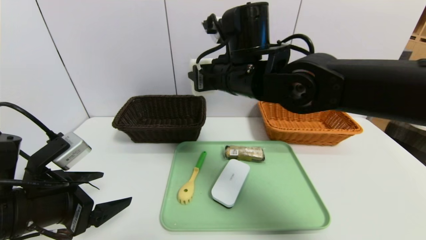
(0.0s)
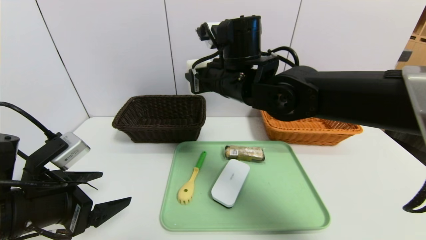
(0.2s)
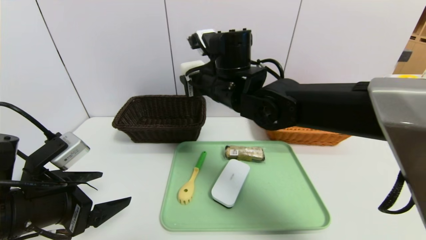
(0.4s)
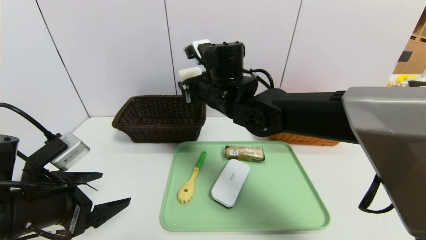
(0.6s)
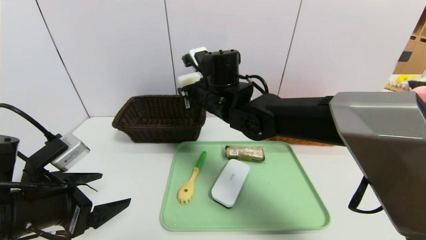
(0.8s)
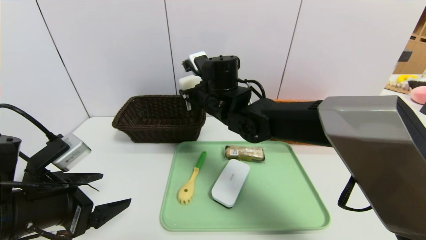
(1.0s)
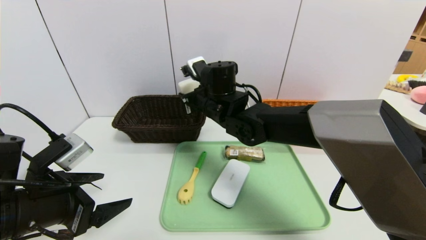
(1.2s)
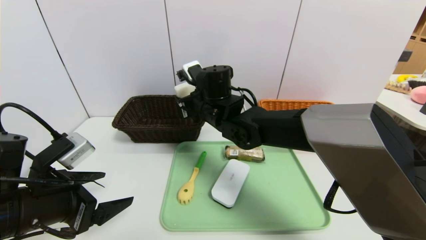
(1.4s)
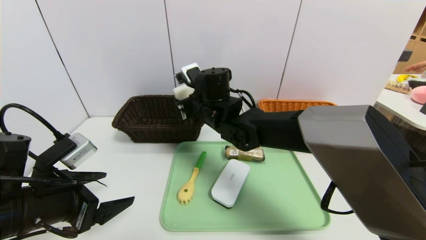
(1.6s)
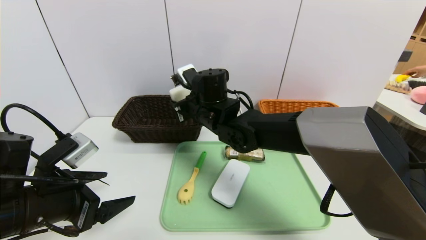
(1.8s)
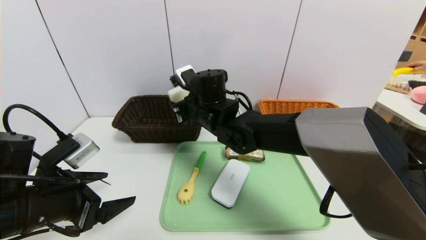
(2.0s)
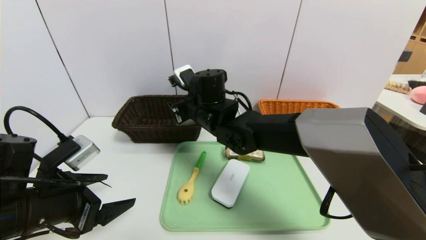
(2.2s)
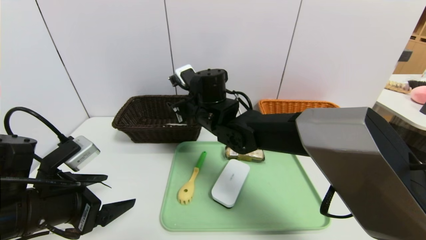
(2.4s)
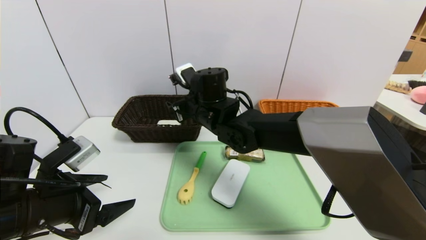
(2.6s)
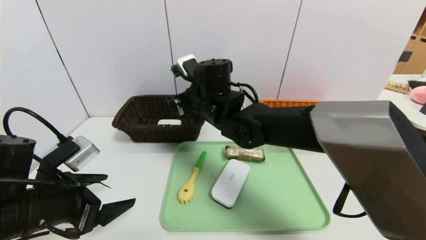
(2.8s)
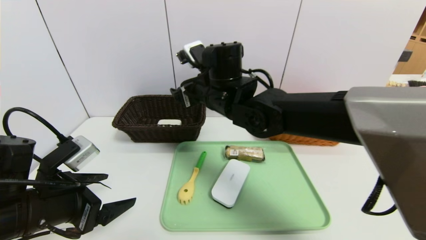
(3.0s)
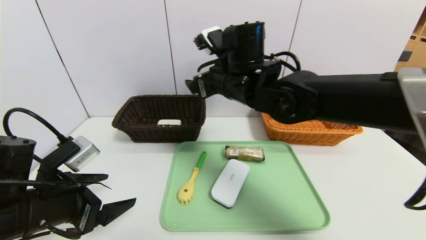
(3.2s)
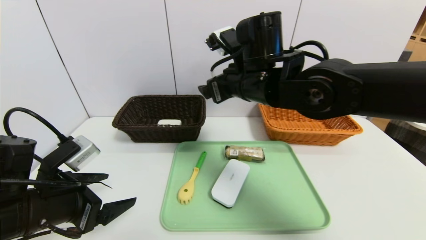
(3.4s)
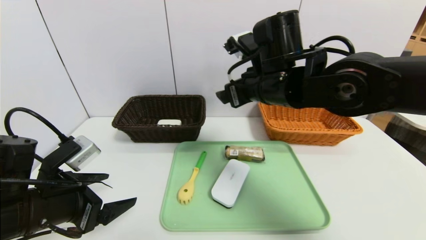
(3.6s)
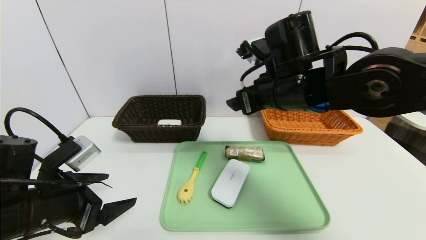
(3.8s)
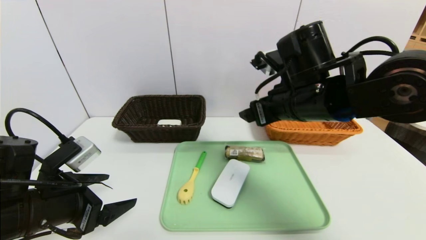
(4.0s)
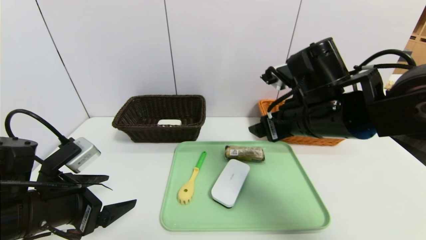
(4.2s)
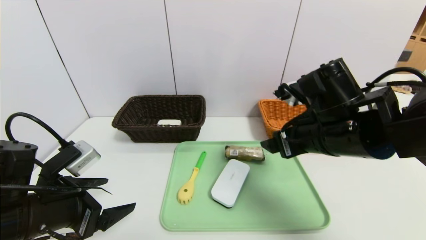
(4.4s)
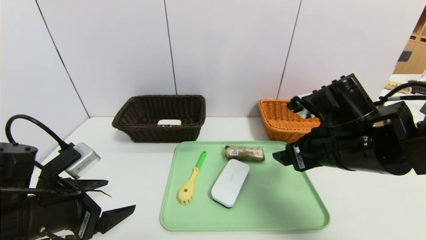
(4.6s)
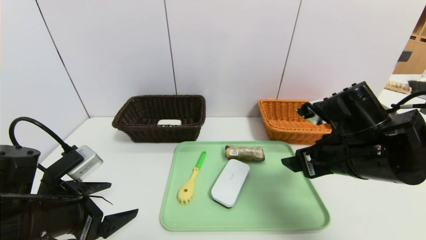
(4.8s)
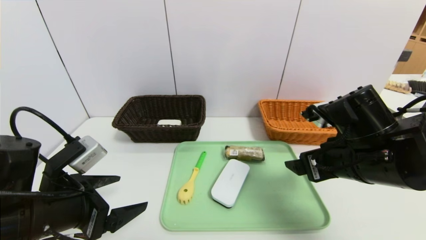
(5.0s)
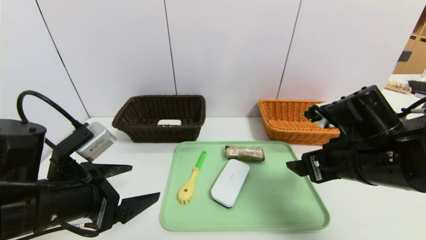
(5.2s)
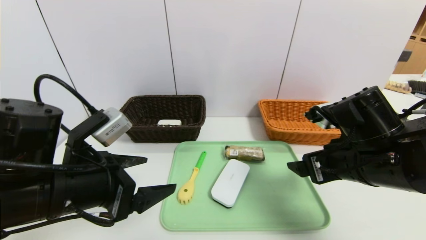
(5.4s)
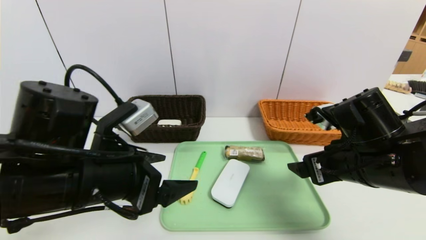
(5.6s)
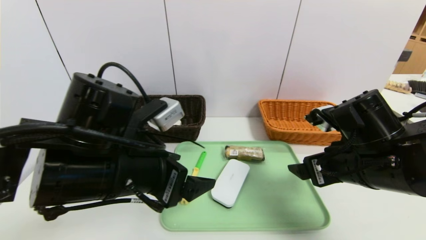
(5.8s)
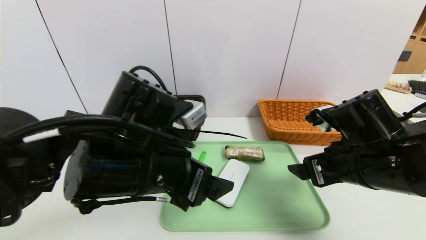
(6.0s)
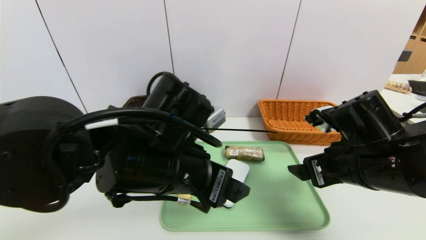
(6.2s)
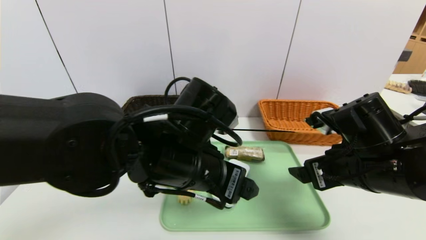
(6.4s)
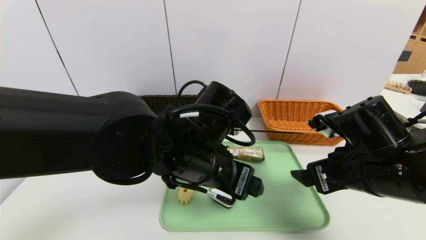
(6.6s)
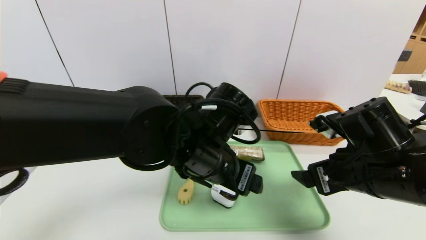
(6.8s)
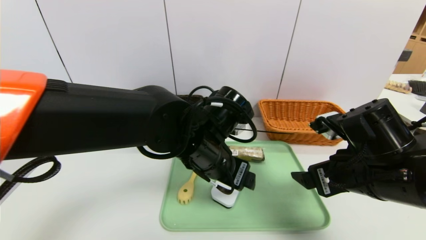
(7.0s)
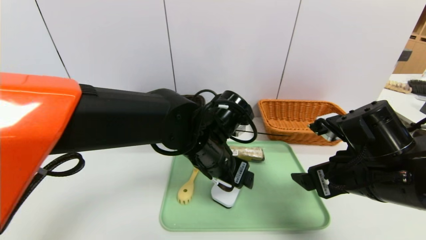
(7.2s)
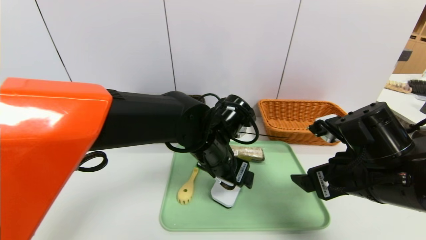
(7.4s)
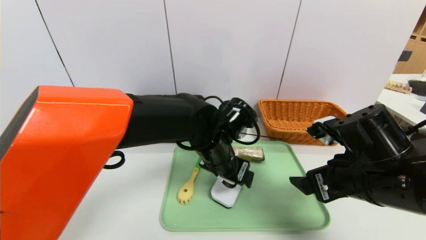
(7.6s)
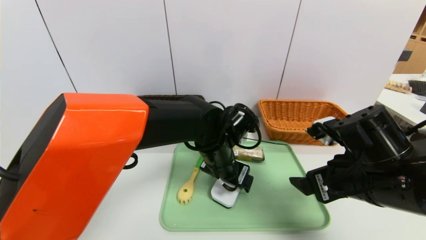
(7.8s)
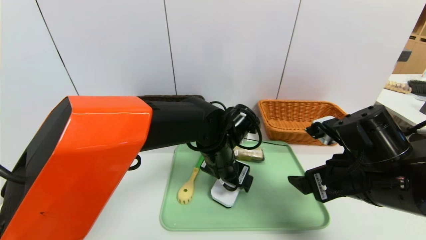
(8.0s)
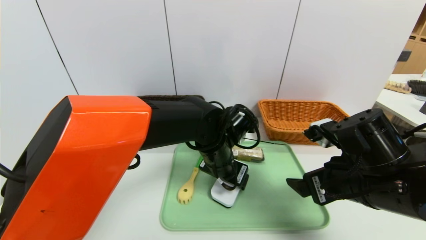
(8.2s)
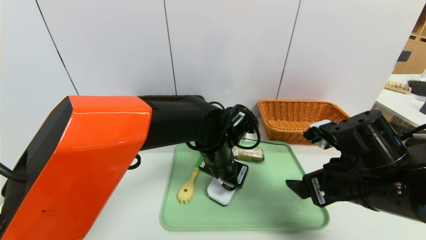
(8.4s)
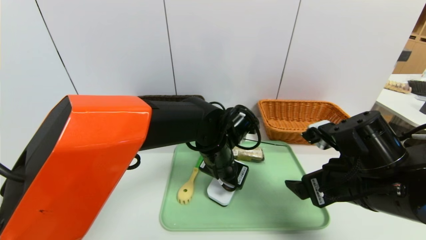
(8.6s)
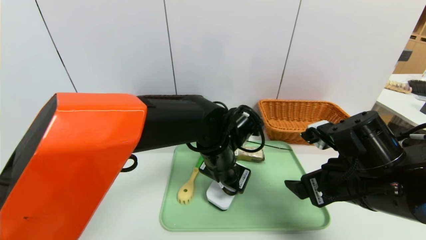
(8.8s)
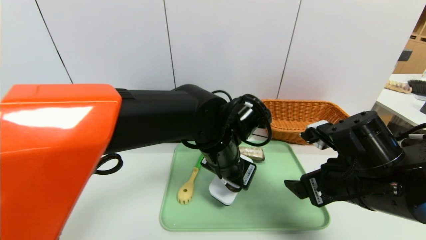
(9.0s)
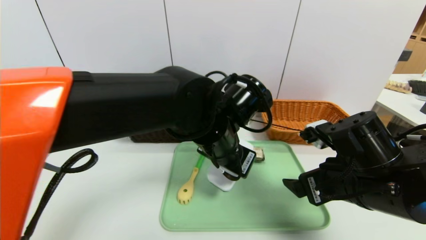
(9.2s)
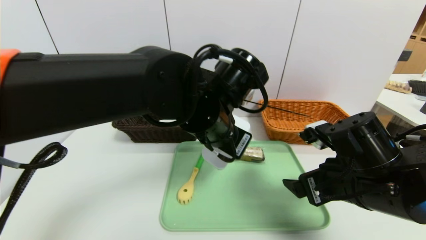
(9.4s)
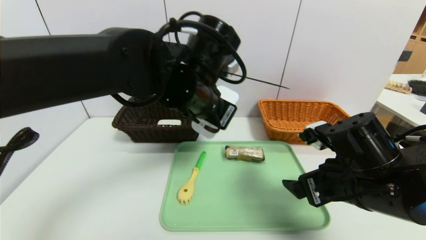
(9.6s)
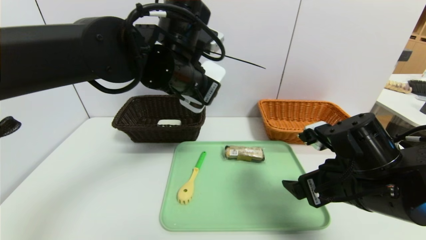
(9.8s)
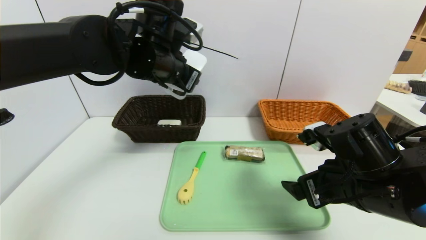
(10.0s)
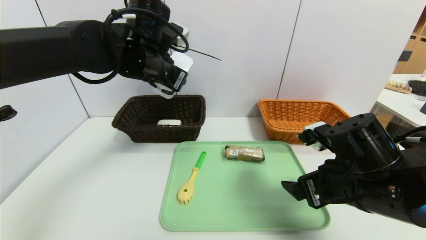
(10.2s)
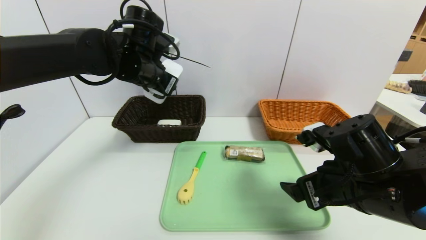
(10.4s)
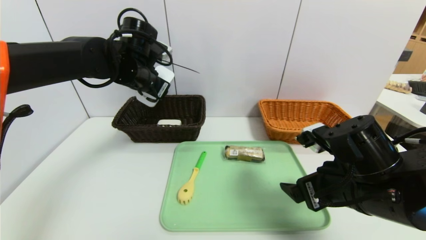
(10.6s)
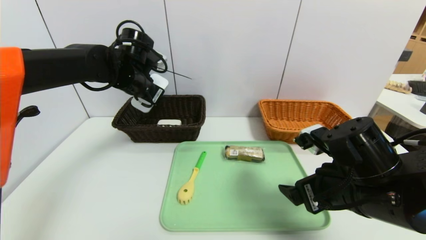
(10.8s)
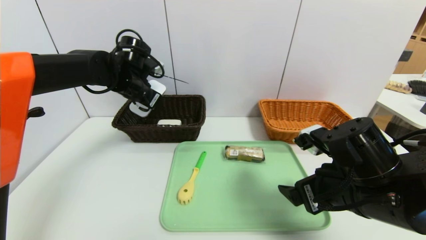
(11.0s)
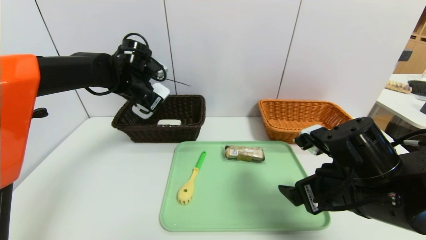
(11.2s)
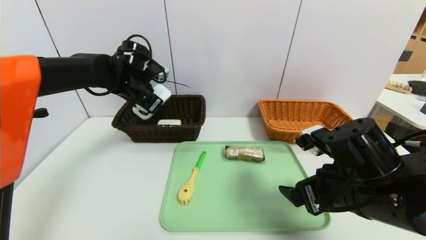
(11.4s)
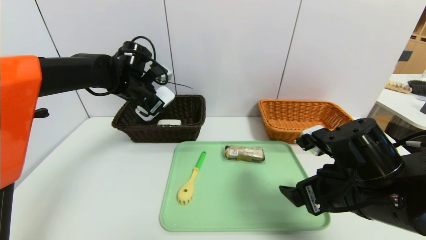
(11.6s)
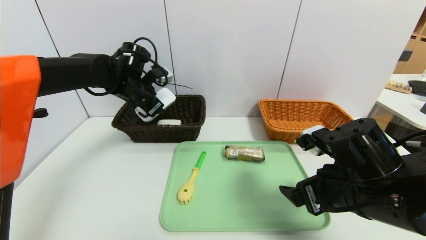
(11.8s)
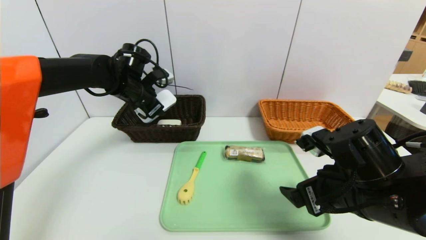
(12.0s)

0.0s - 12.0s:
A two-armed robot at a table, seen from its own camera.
Task of the whole recording: place the food in the right basket with the right gripper, and place the non food items in the left basket with the left gripper.
0.0s - 1.6s: The right gripper moves downward and to the left, about 10 cm.
1.6s - 3.0s: The right gripper shifts about 5 cm upward, and opens its fingers.
3.0s - 4.4s: The right gripper is displaced to the right and backward by some 20 cm.
4.4s - 6.0s: The right gripper shifts by about 5 cm. Meanwhile the left gripper heads to the right and upward, covering roughly 20 cm.
6.0s - 7.6s: The left gripper is displaced forward, to the right and downward by some 15 cm.
7.6s - 9.0s: The left gripper closes.
9.0s - 10.4s: The left gripper travels to the left, forward and upward by approximately 20 cm.
10.4s - 12.0s: The left gripper heads downward, covering approximately 5 cm.

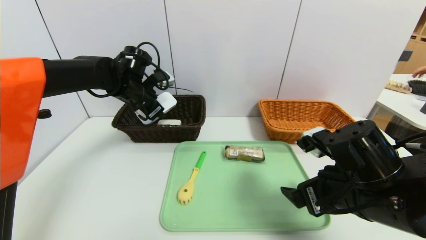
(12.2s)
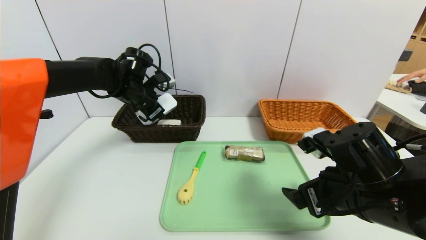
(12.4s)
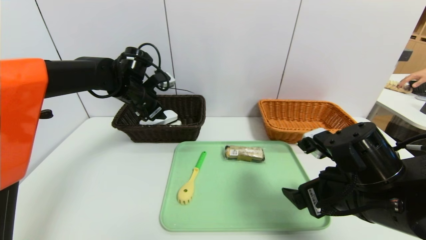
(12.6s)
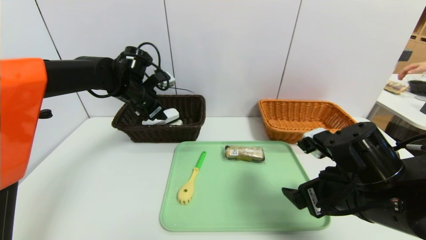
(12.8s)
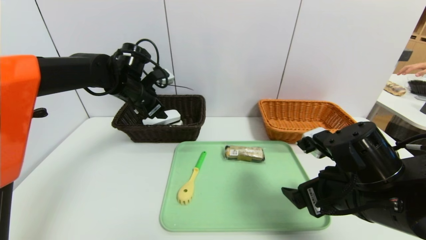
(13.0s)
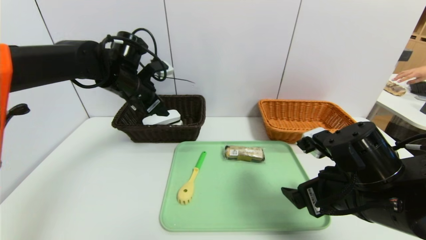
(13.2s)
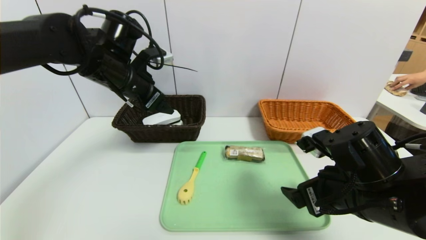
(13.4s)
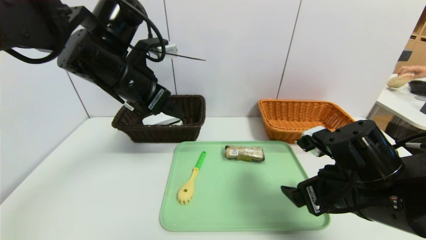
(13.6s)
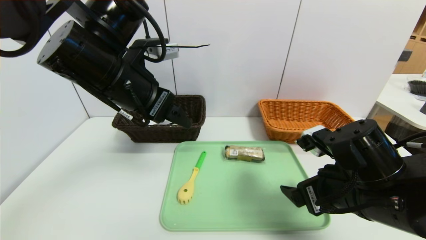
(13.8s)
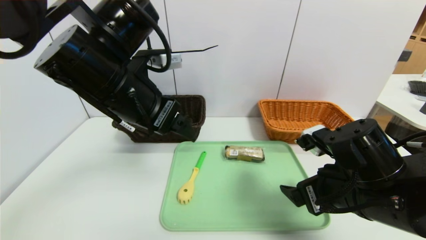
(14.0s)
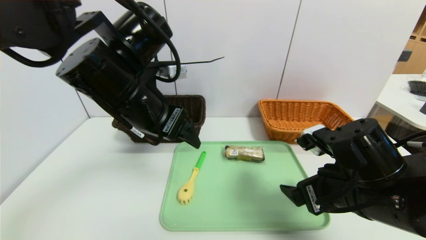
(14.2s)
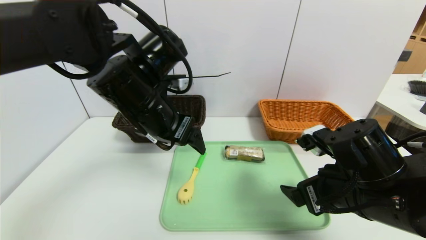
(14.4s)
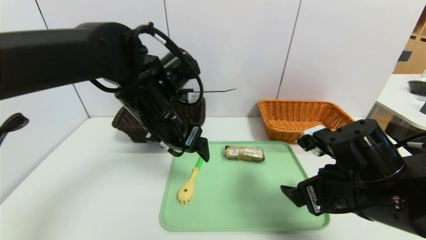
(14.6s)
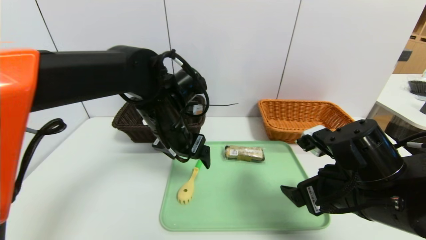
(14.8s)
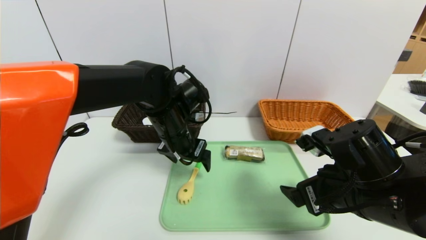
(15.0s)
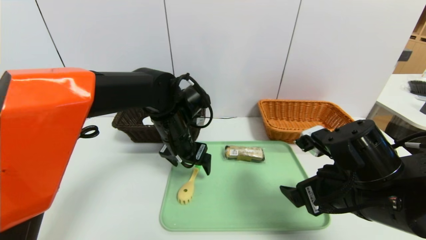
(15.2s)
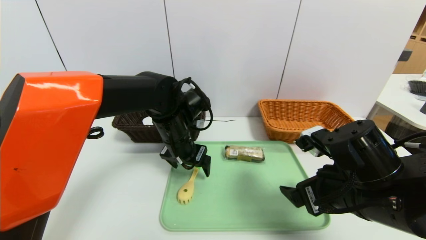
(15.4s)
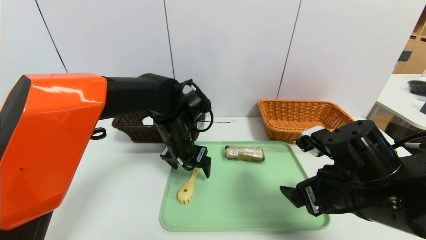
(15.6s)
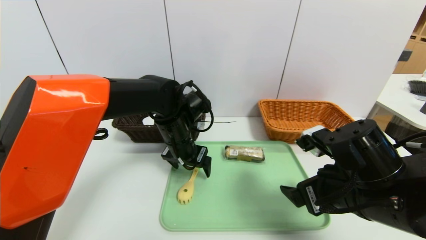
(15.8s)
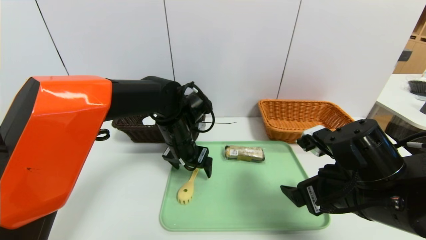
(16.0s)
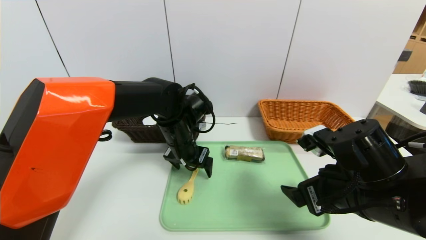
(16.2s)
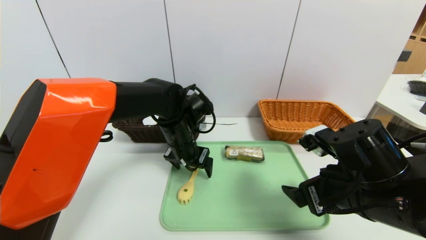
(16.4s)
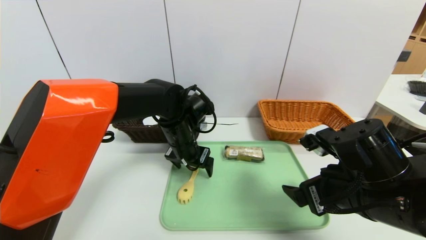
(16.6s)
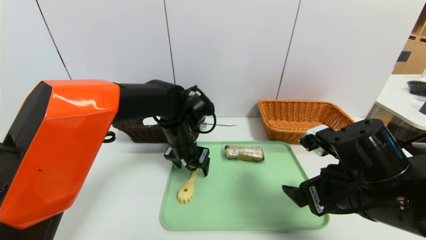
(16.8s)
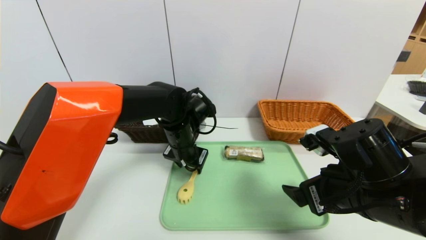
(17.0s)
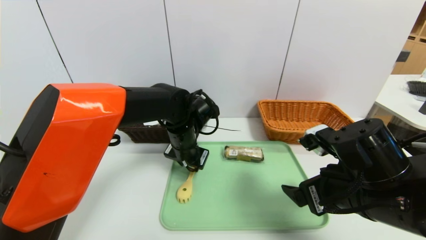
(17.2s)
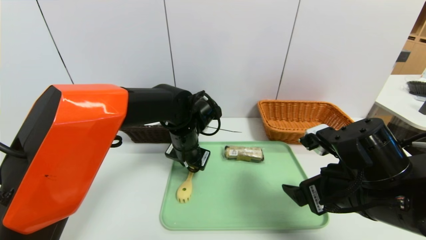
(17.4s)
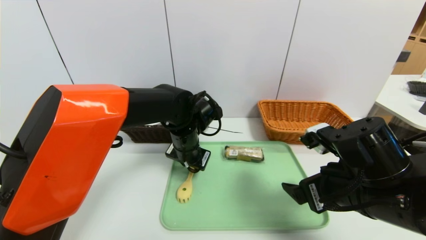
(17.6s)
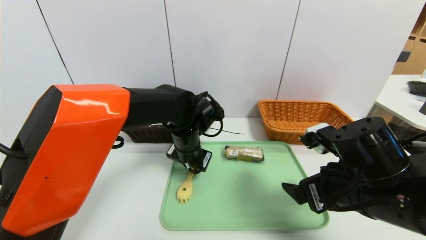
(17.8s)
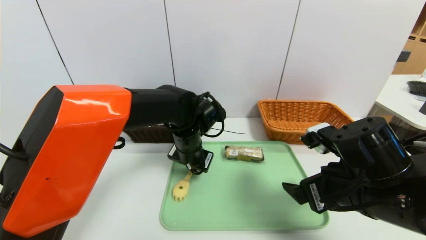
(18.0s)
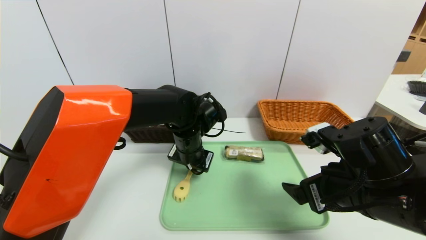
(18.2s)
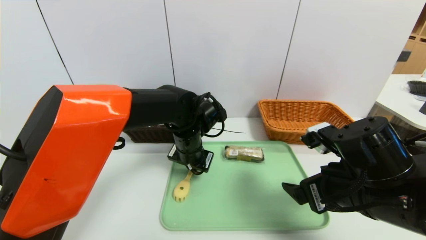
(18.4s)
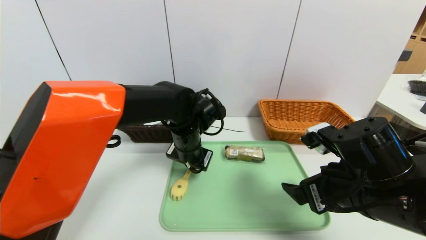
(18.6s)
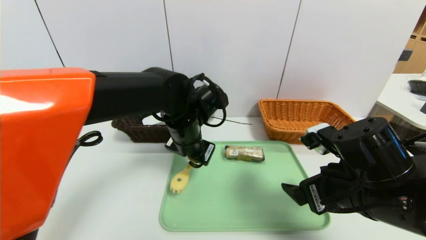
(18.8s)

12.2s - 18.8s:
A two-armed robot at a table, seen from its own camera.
Task of the whole recording: place the food in the right basket with the right gripper, and place the non food items in the left basket with the left gripper.
12.2s - 13.8s: The left gripper heads backward and upward, covering about 20 cm, and opens.
13.8s - 15.4s: The left gripper travels downward, forward and to the right by some 20 cm.
15.4s - 17.2s: The left gripper closes its fingers.
17.2s - 18.8s: The left gripper shifts about 5 cm upward, and closes.
